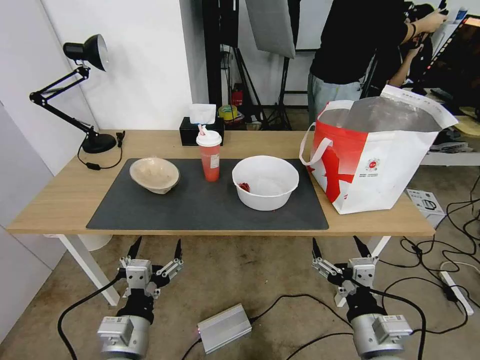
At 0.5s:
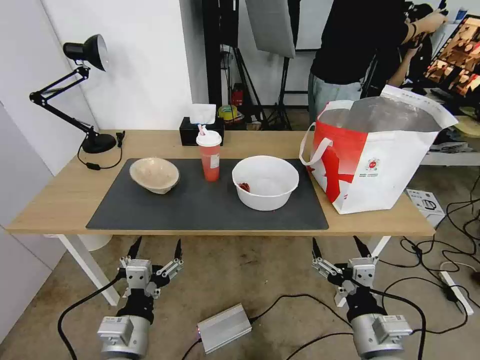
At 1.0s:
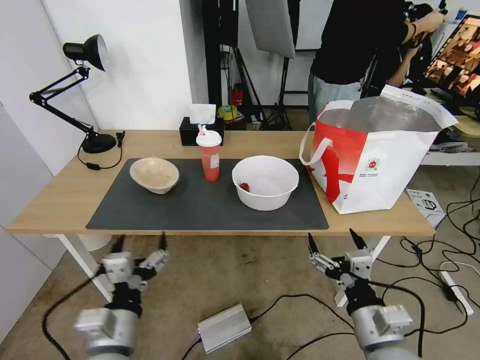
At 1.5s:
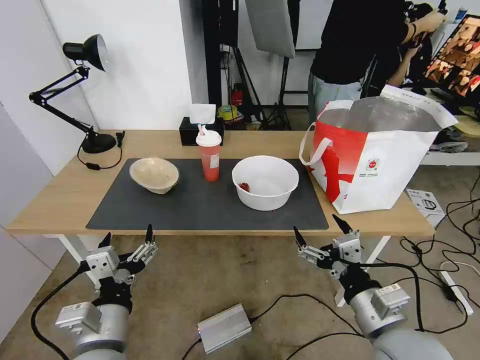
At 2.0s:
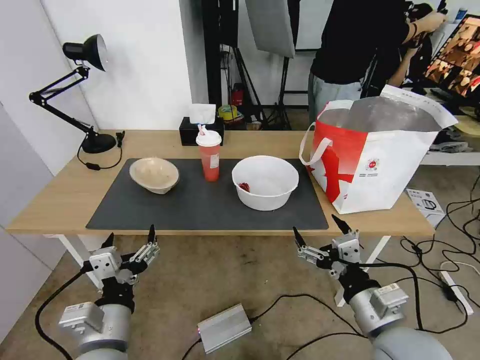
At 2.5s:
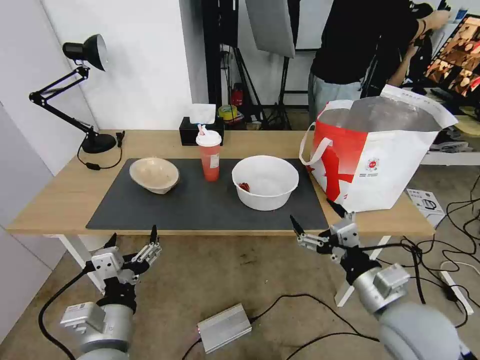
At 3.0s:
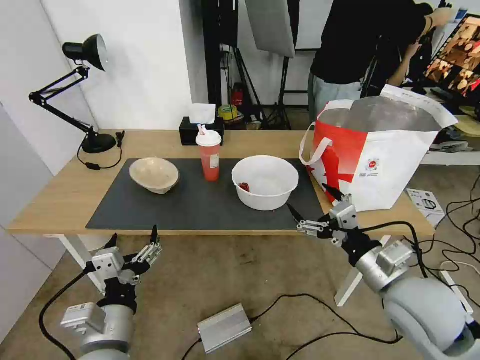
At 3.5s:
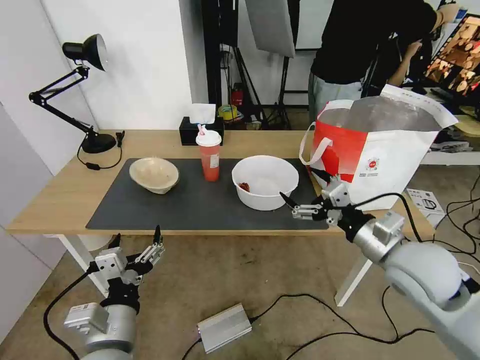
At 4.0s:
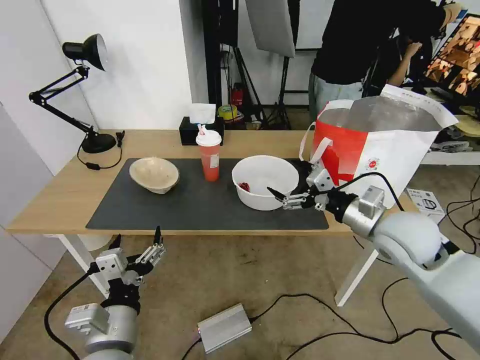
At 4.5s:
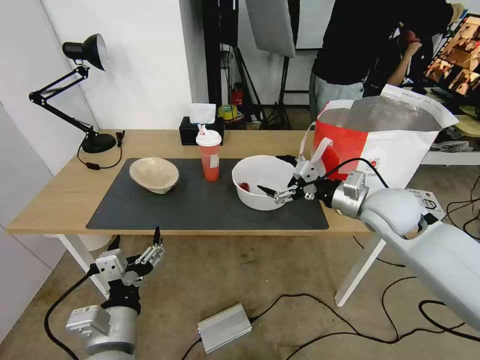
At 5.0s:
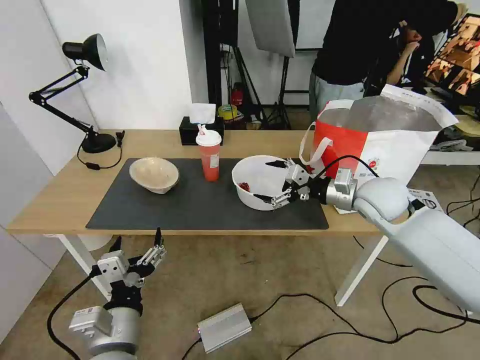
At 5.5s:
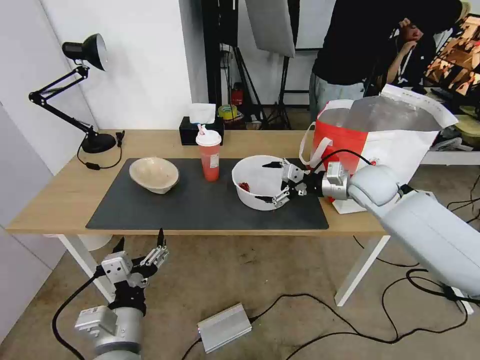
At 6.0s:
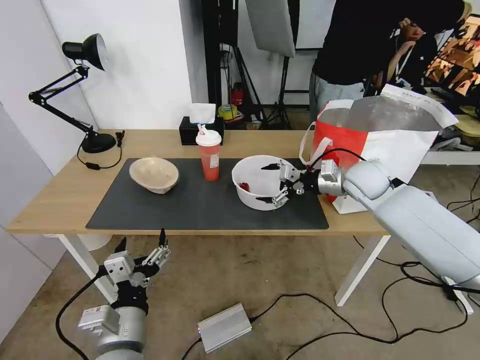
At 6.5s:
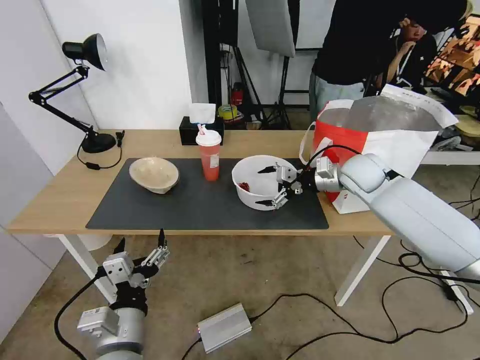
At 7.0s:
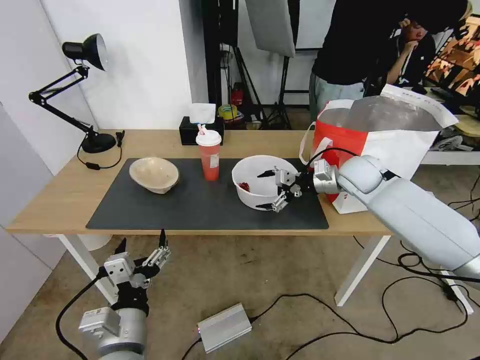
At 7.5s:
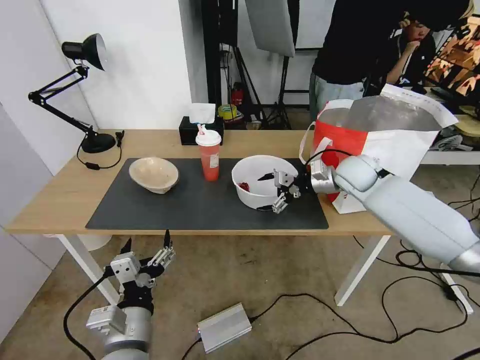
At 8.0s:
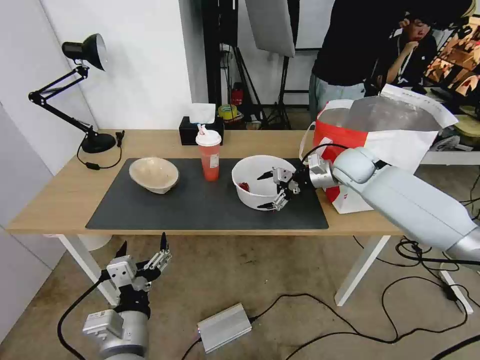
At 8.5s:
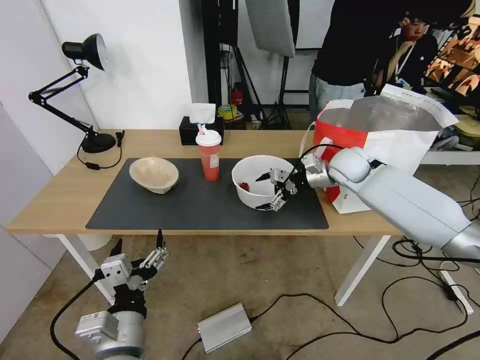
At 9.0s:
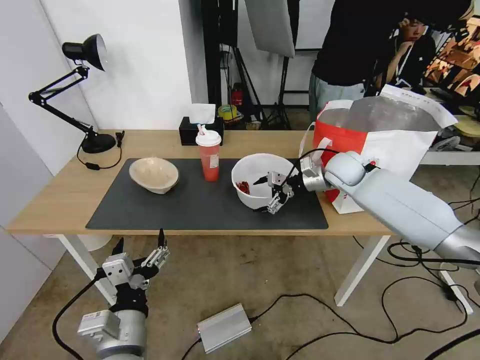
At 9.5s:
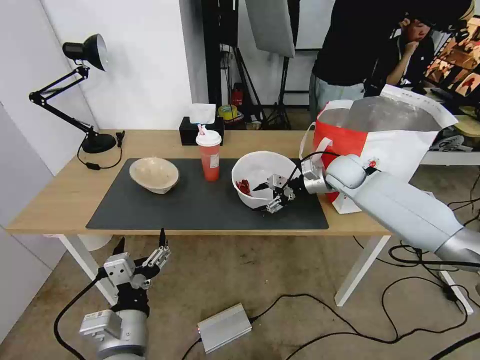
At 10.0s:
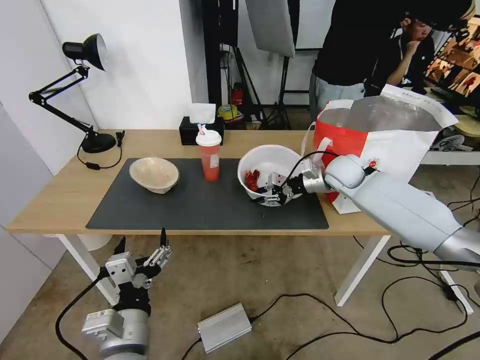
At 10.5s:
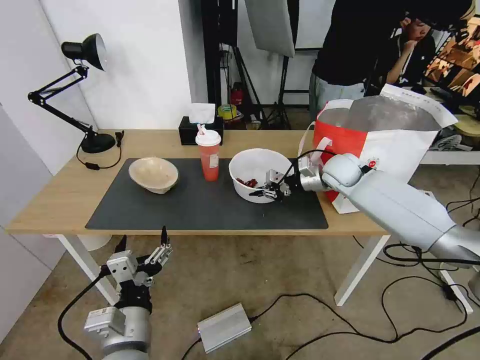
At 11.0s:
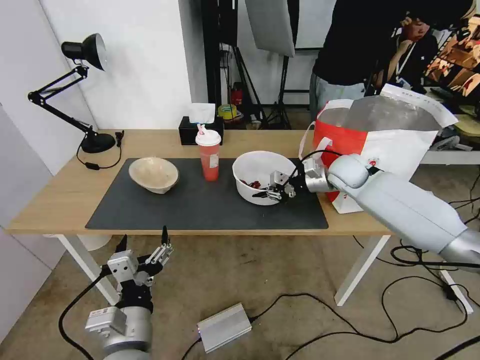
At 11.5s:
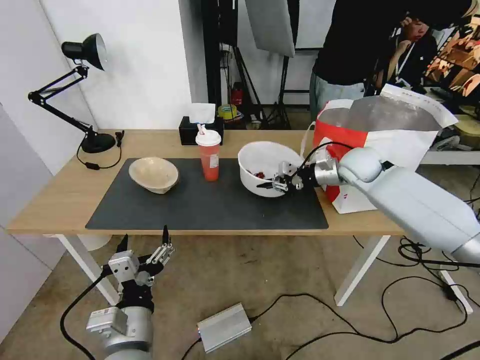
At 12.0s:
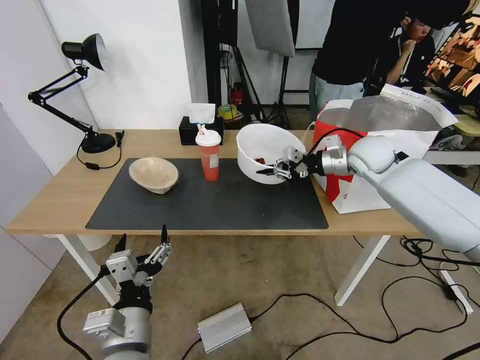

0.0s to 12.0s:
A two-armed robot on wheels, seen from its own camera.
Task of the whole recording: Pick up the trash from the table and place it into the takeout bag.
2.0s to 4.0s: The right gripper is displaced forward and upward by about 20 cm.
4.0s to 6.0s: The right gripper shifts some 15 cm forward.
6.0s to 8.0s: The right gripper heads forward, covering approximately 5 cm.
8.0s to 10.0s: The right gripper closes.
10.0s to 12.0s: The right gripper travels upward by some 5 cm.

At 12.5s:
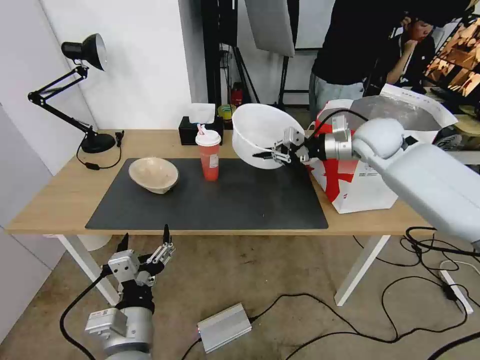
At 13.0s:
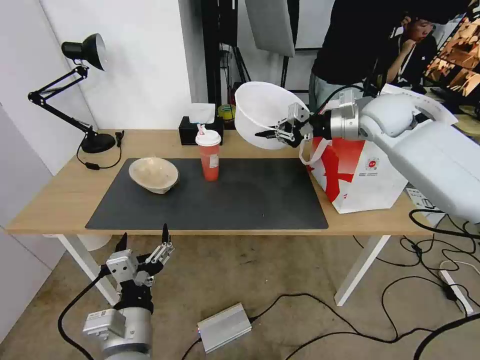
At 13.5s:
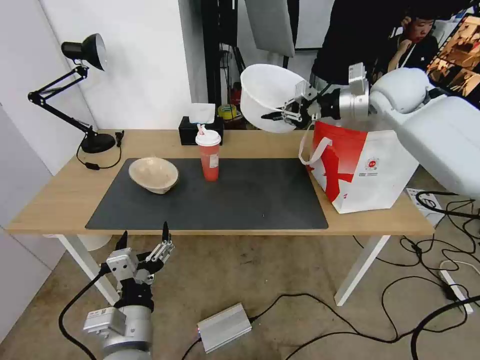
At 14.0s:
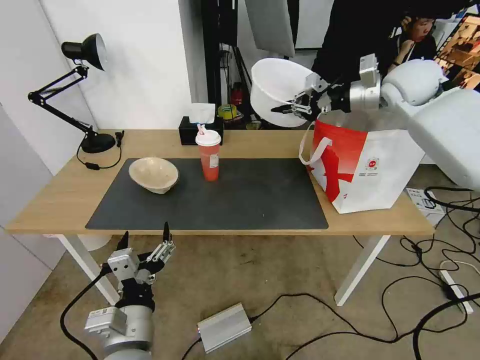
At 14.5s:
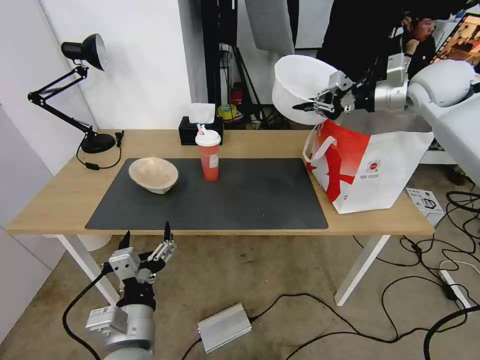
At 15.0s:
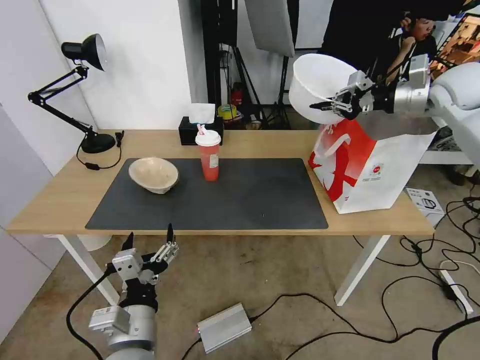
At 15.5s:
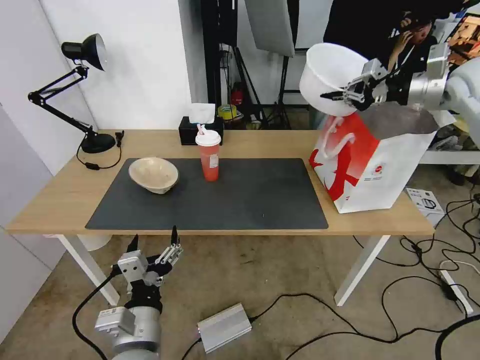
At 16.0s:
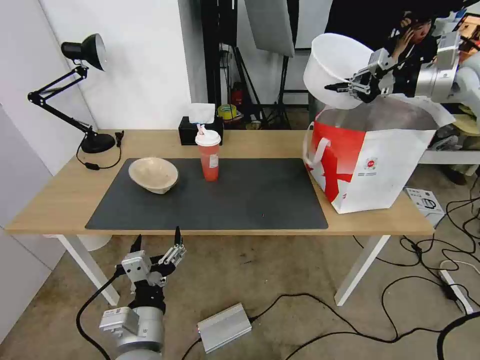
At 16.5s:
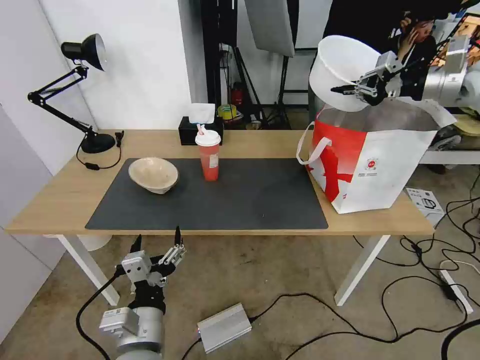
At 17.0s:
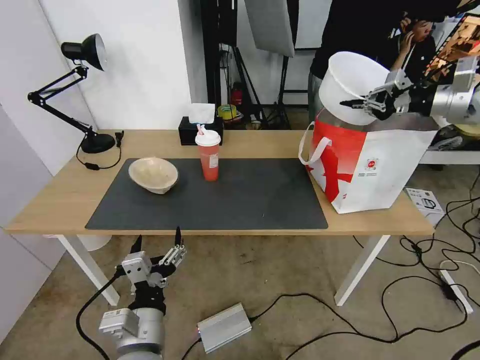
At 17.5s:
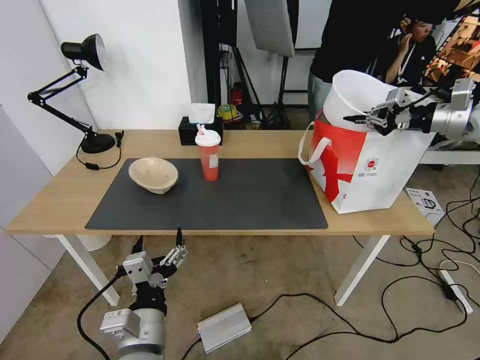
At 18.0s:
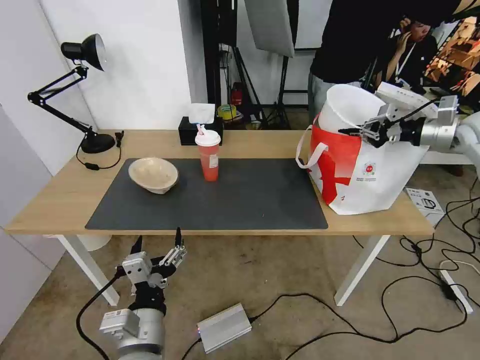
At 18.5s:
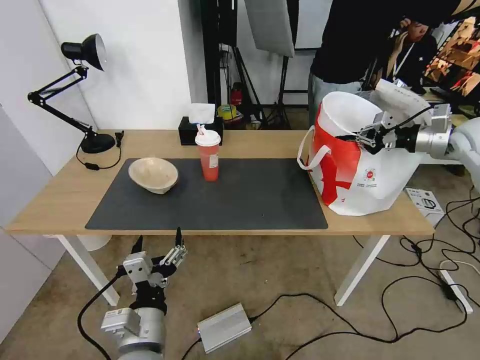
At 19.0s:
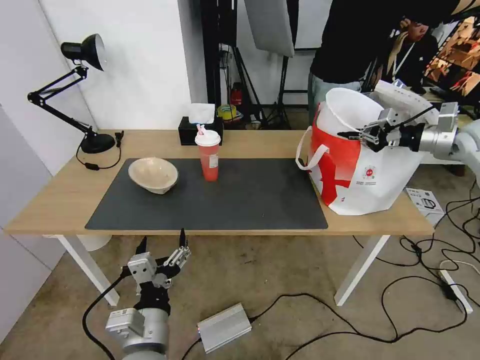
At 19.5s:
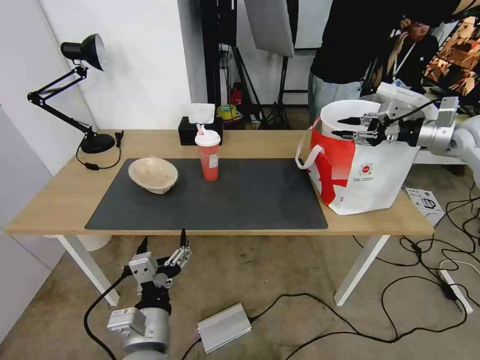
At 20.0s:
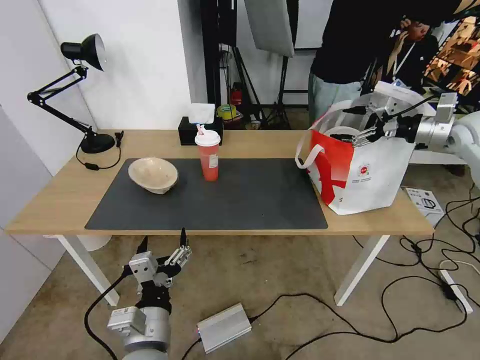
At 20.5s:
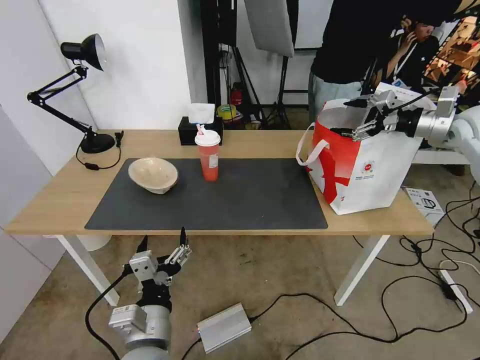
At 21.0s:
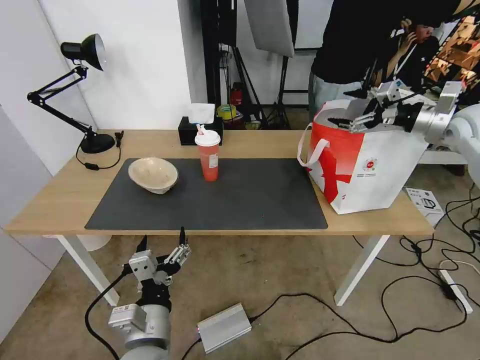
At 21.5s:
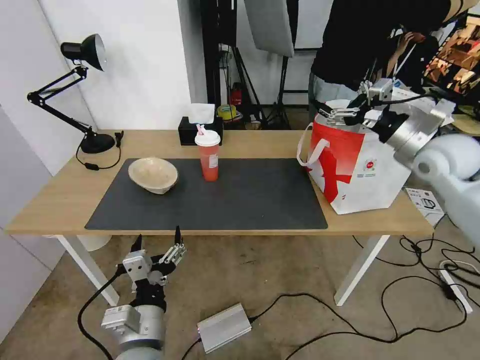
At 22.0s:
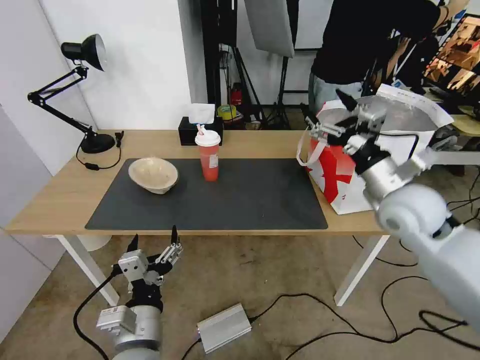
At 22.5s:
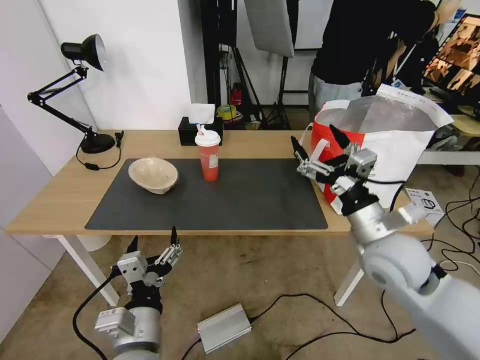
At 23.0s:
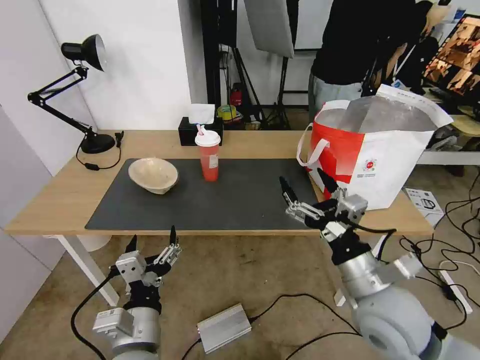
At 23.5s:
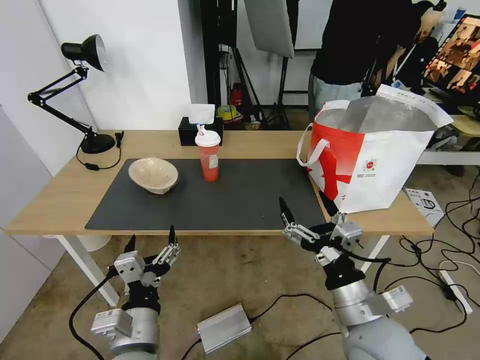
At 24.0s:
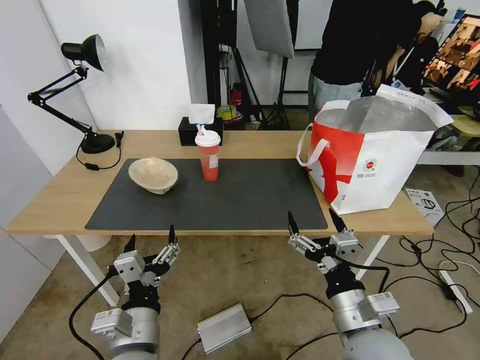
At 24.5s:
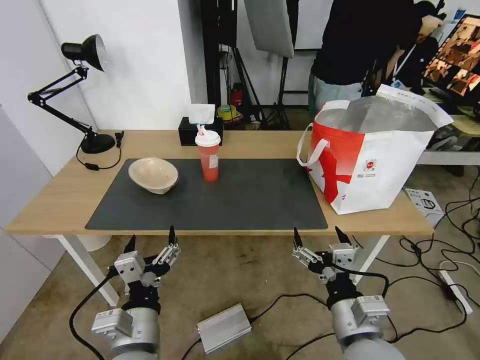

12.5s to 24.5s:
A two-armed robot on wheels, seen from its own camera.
Task of the whole recording: Pick up the trash from the table and place it into the takeout bag.
12.5s to 14.5s: The right gripper moves upward and to the right, some 15 cm.
14.5s to 16.5s: The right gripper is displaced to the right by approximately 10 cm.
16.5s to 18.5s: The right gripper goes approximately 10 cm downward.
18.5s to 20.5s: The right gripper opens its fingers.
20.5s to 22.5s: The right gripper travels to the left, backward and downward by some 35 cm.
22.5s to 24.5s: The right gripper moves backward, downward and to the left, approximately 20 cm.

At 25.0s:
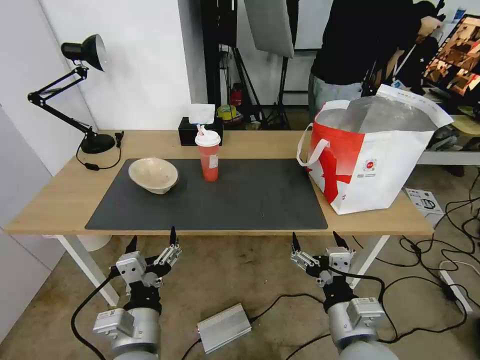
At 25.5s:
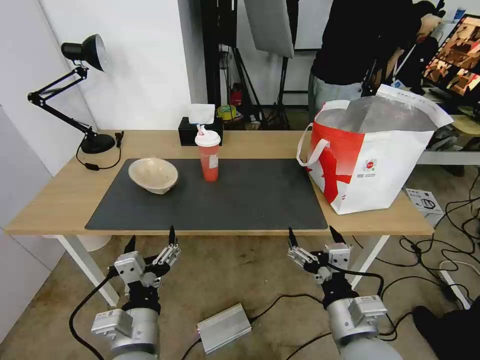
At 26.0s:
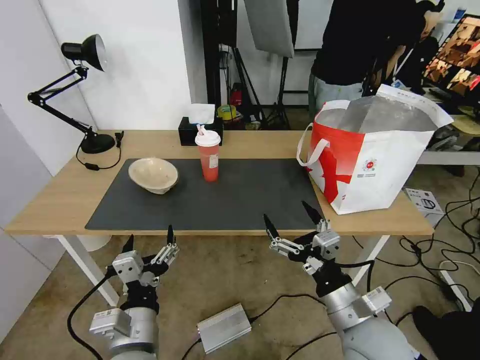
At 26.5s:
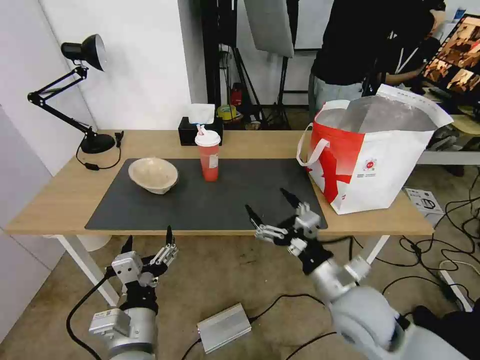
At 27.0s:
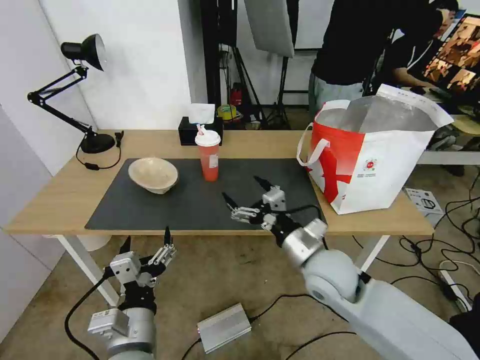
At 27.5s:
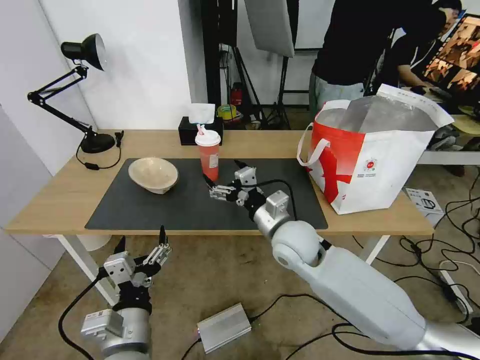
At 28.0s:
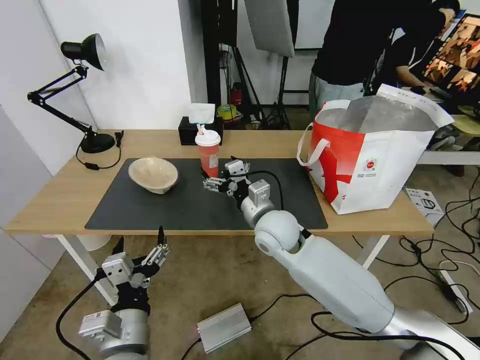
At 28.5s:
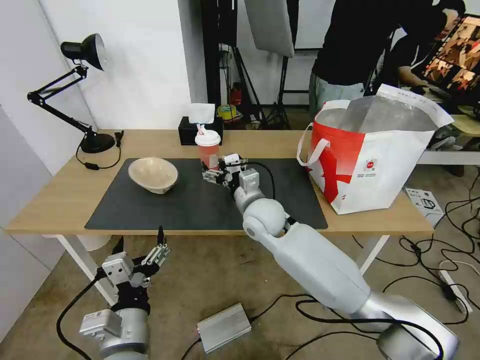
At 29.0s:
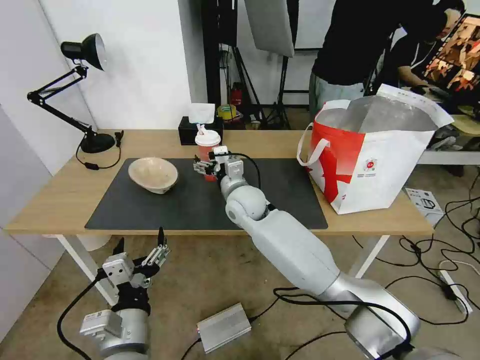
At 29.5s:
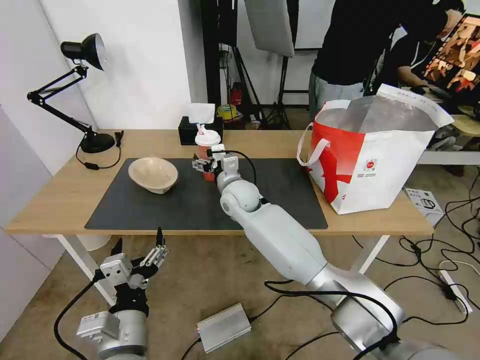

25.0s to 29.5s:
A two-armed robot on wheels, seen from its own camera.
Task of the whole recording: Pick up the trash from the table and place it into the takeout bag.
25.0s to 27.0s: The right gripper shifts about 15 cm forward.
27.0s to 29.5s: The right gripper shifts about 25 cm forward and to the left.
